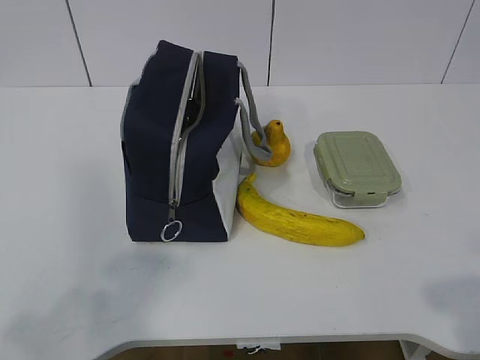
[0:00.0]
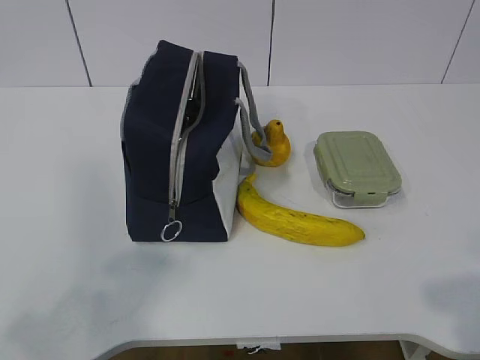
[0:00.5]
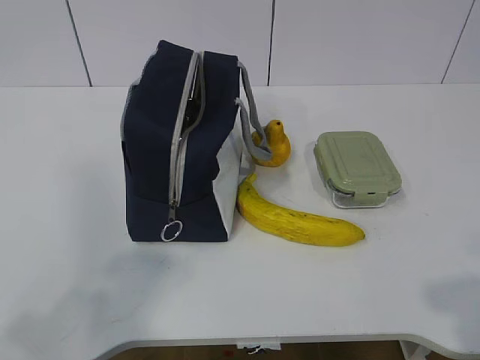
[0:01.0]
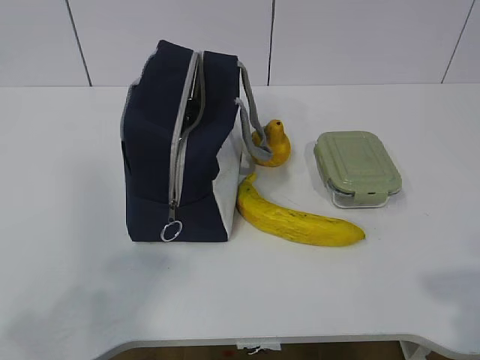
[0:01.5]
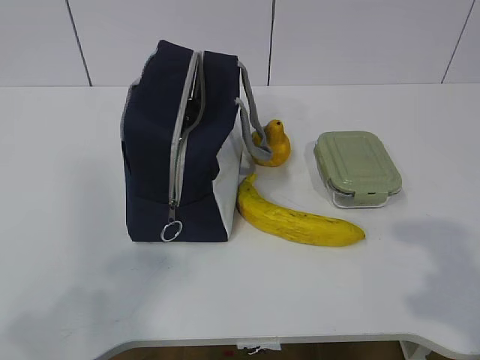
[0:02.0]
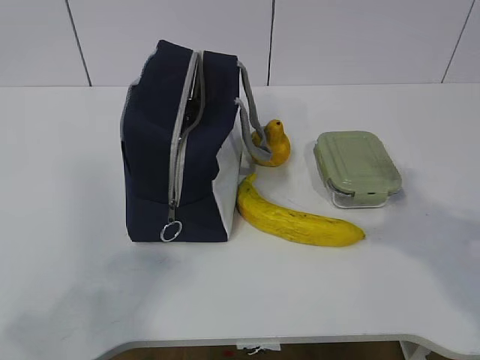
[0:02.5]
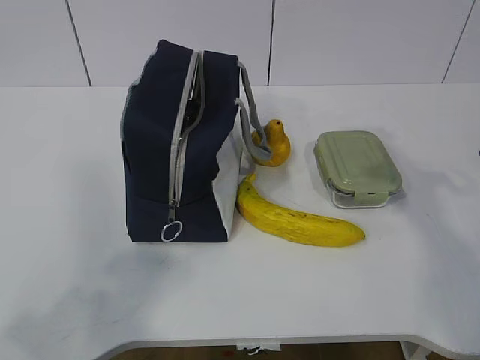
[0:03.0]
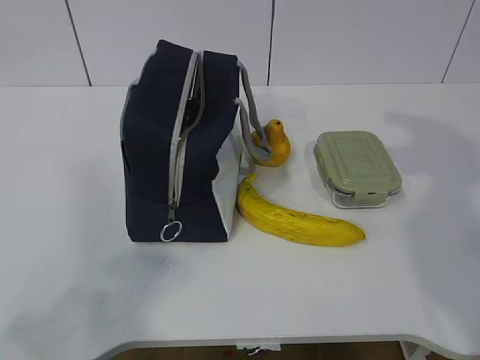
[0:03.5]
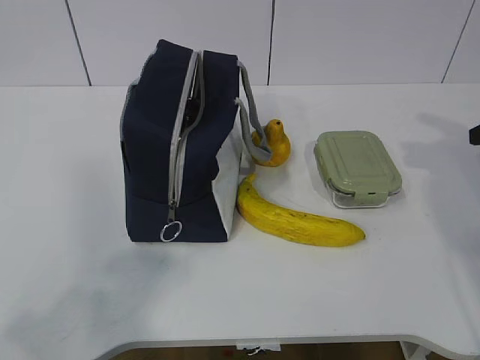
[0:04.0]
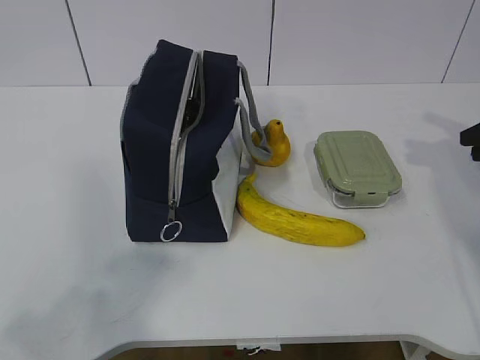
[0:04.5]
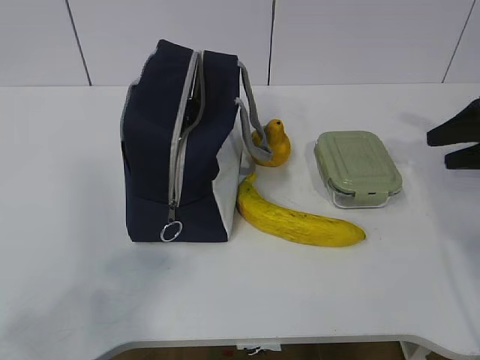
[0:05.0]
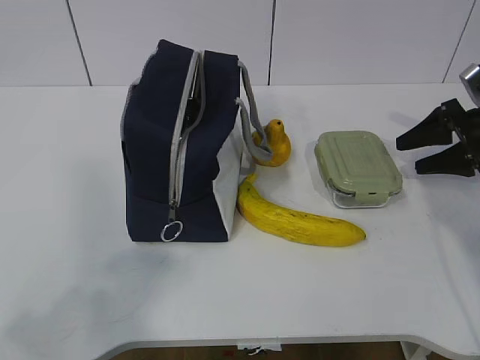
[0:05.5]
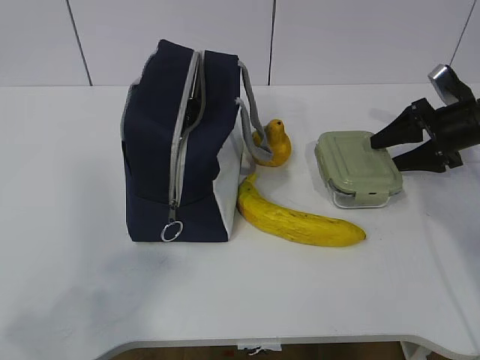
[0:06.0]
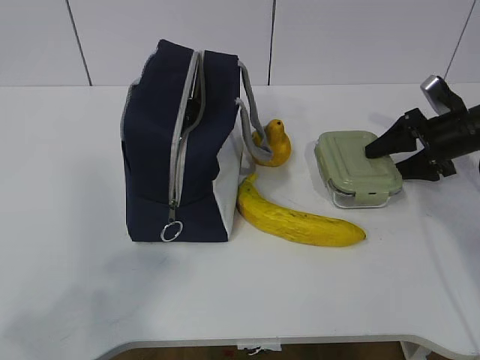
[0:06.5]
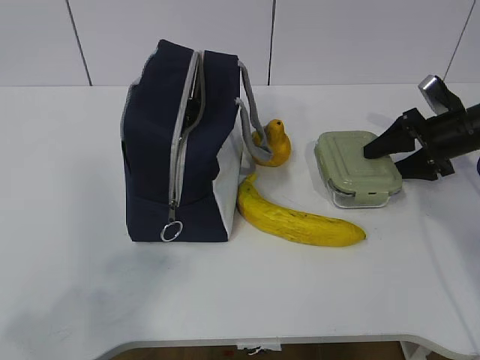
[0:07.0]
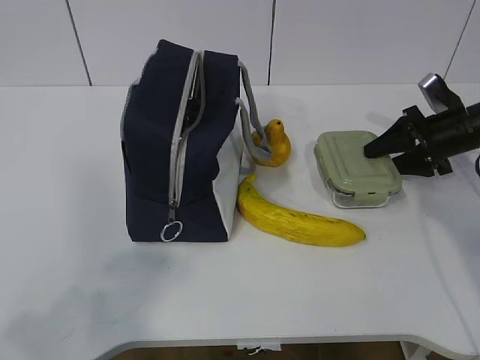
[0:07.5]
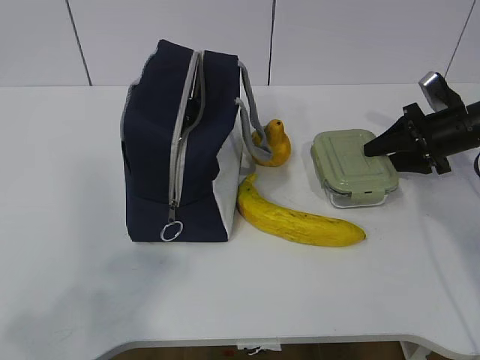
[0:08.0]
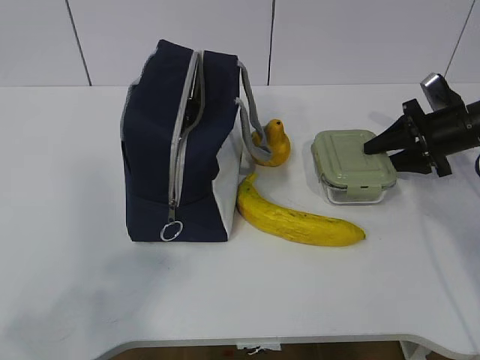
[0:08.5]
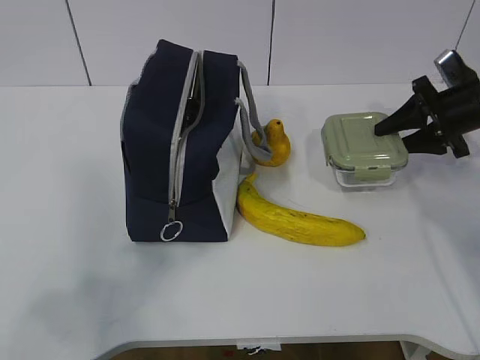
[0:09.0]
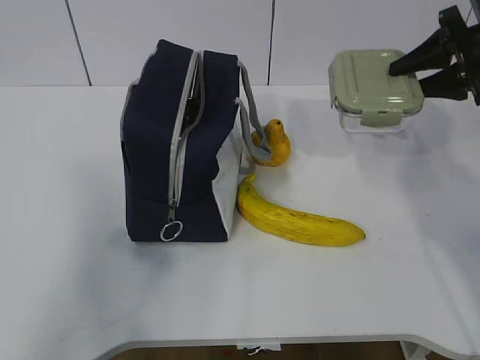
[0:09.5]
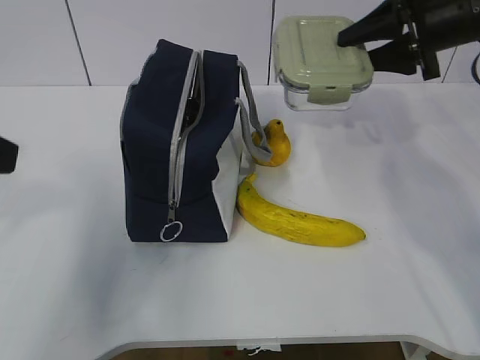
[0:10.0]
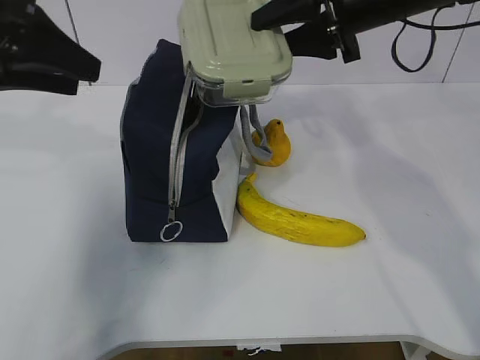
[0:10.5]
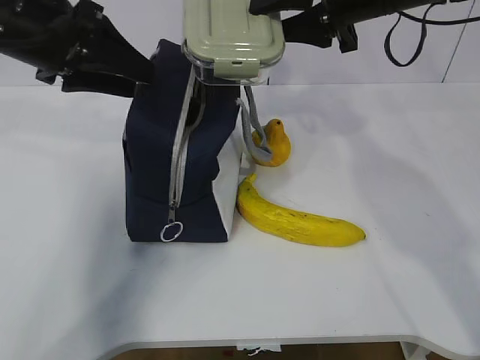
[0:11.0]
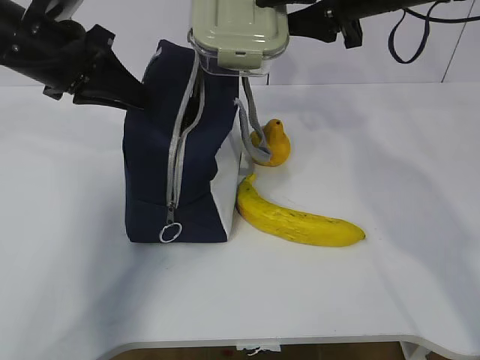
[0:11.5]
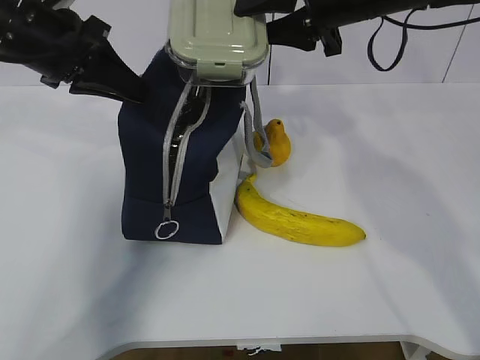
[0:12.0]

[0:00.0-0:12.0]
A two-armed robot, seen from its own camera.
Step, 0:00.0 to 0:08.0: Grasp the box with the right gripper.
0:02.0 to 0:04.0: The right gripper is displaced forward and to the right by roughly 30 cm.
0:04.0 to 0:06.0: The right gripper heads forward, downward and to the left, covering about 15 cm, and opens up.
0:06.0 to 0:08.0: The right gripper closes up.
0:08.0 to 0:10.0: The right gripper heads upward and to the left, covering approximately 20 cm. The left gripper shifts approximately 20 cm forward.
0:10.0 to 0:12.0: The right gripper goes approximately 10 cm to the left; the left gripper goes about 20 cm forward, and closes.

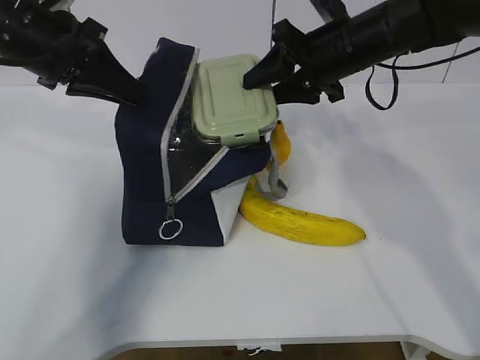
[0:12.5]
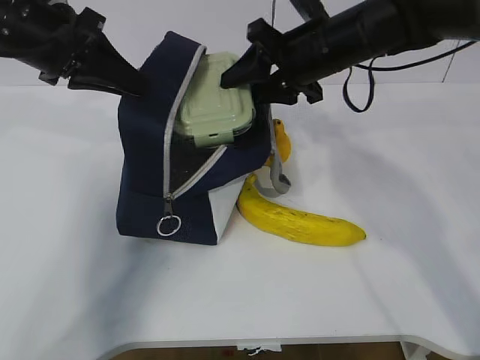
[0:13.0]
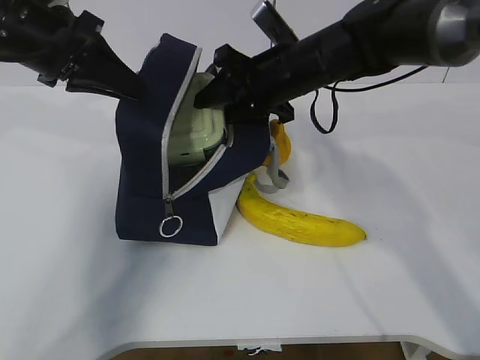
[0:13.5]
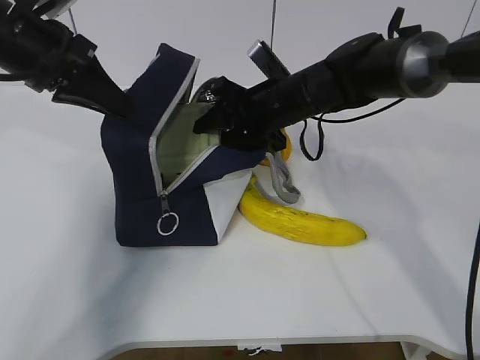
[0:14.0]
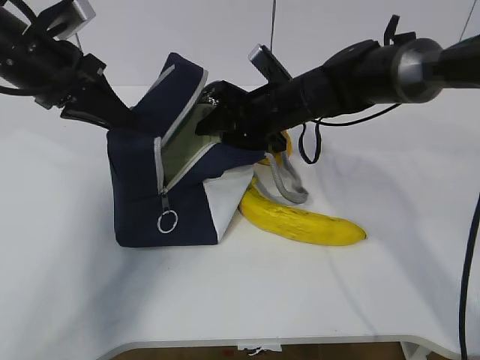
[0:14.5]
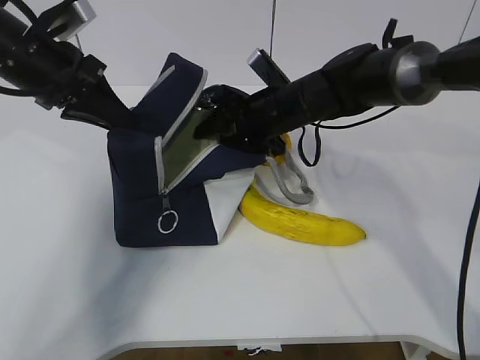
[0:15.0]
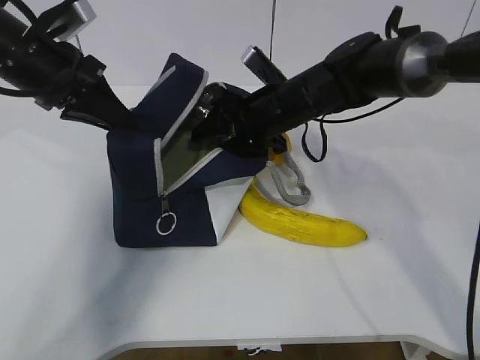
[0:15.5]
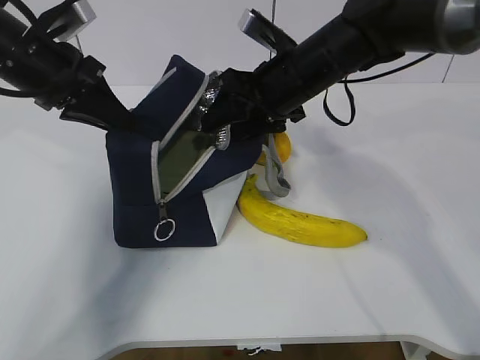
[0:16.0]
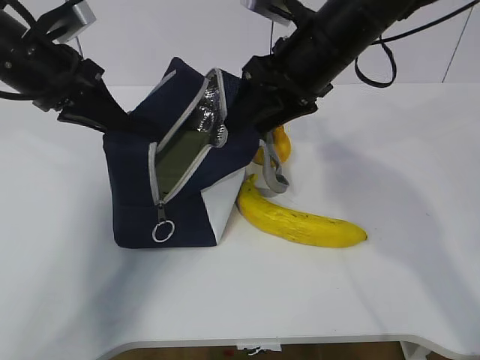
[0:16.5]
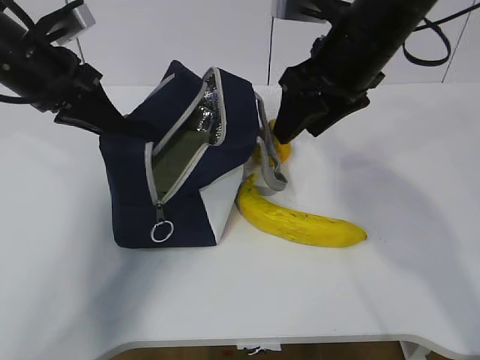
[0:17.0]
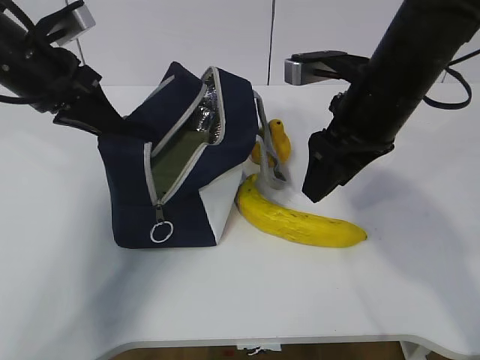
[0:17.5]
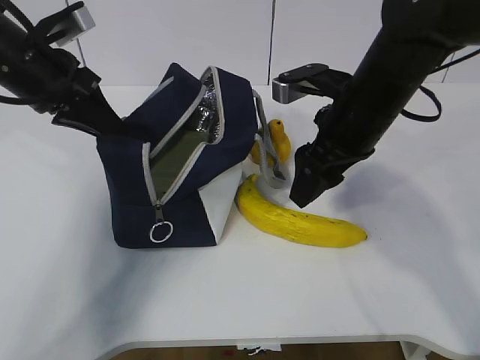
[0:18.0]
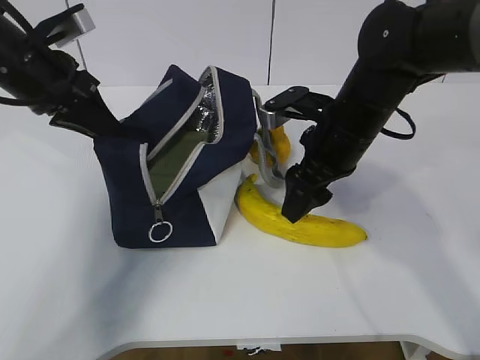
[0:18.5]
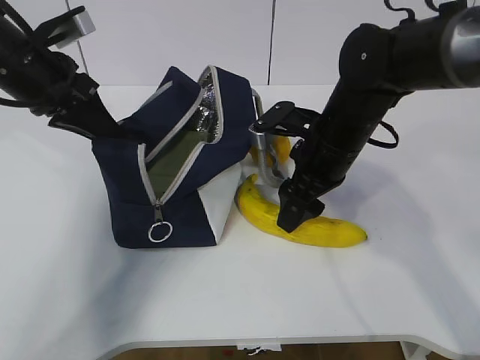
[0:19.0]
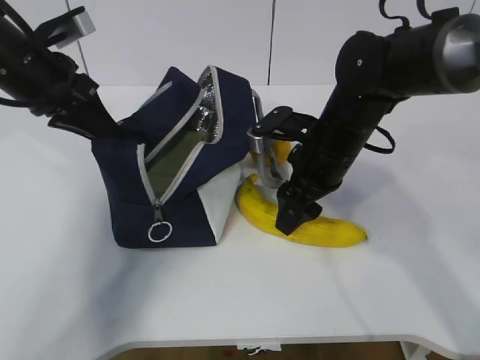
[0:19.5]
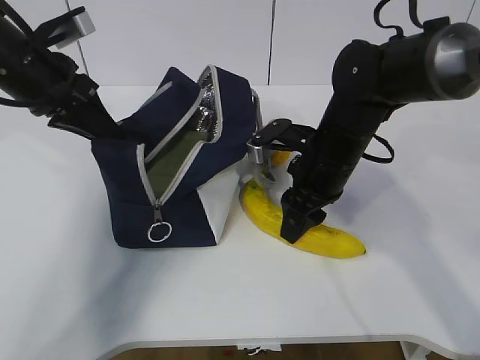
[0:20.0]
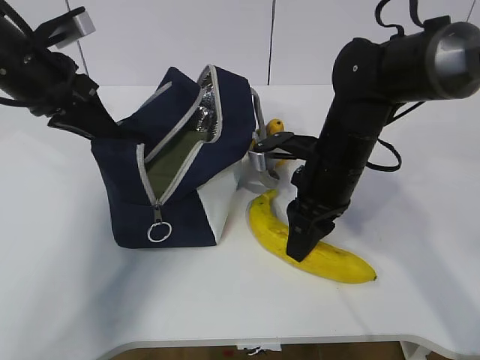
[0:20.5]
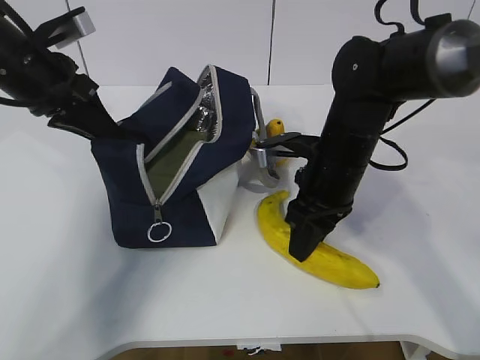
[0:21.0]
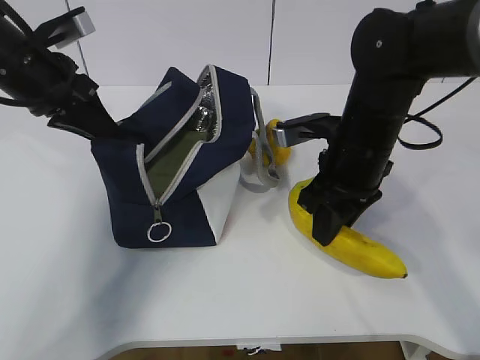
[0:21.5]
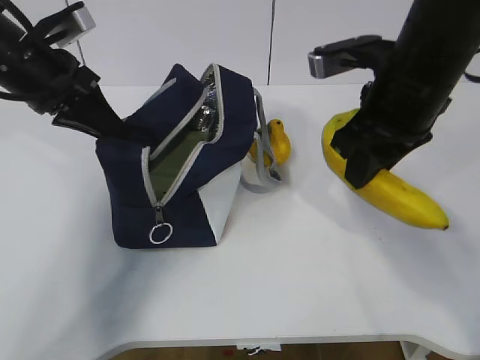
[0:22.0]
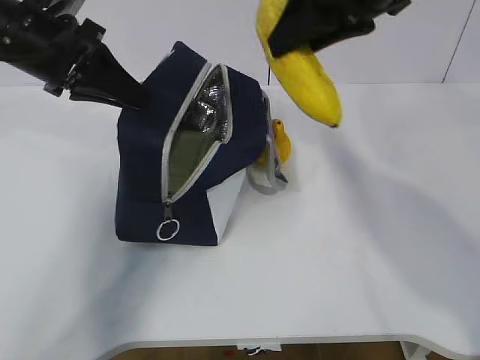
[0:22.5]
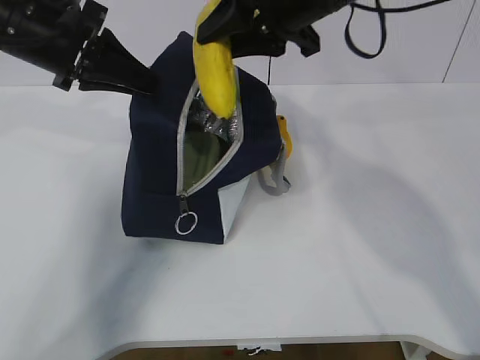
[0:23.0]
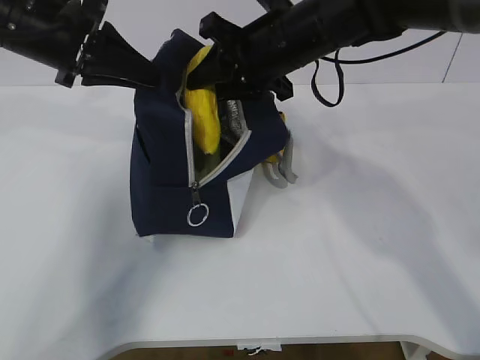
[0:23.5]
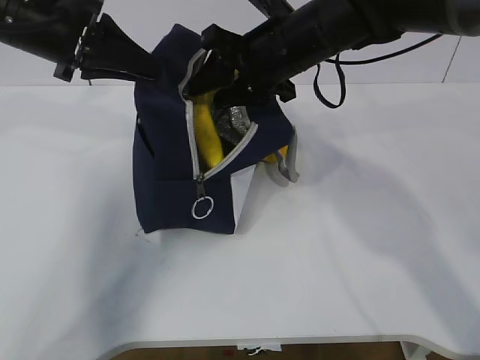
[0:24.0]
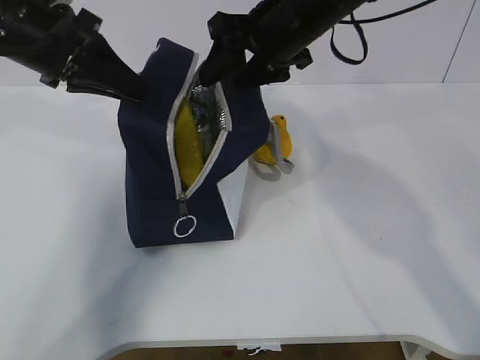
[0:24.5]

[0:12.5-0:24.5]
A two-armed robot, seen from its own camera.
Step, 0:12.5 to 0:16.5: Place the box into the package with the right gripper.
Step, 0:17.0 to 0:20.0: Grasp the banana with the right gripper.
Step, 0:20.5 to 0:24.0: Place the banana into the package with the right gripper.
0:12.5 to 0:14.5: The right gripper moves downward and to the left, approximately 10 cm.
0:14.5 to 0:16.5: The right gripper shifts some 15 cm upward and backward.
0:16.5 to 0:18.5: The right gripper is displaced downward by approximately 10 cm.
0:18.5 to 0:20.5: The right gripper closes its fingers.
0:20.5 to 0:22.5: The right gripper shifts some 20 cm upward.
0:22.5 to 0:24.5: The right gripper goes some 10 cm forward and downward.

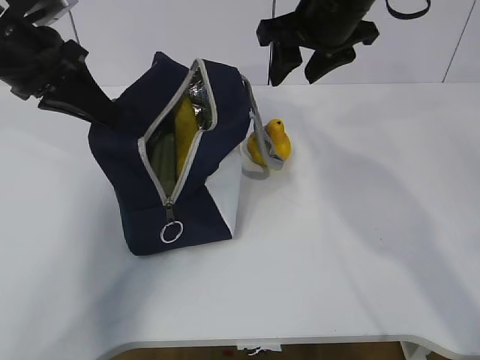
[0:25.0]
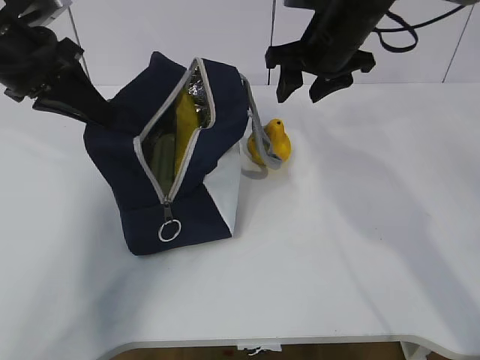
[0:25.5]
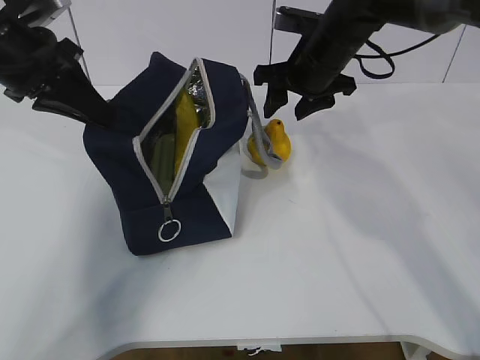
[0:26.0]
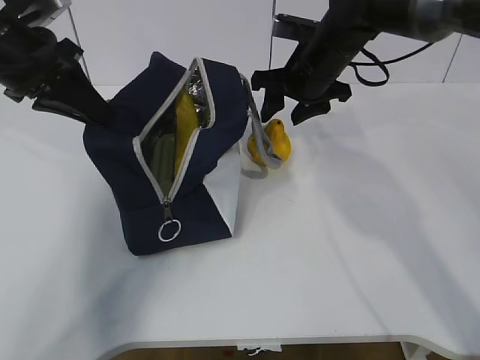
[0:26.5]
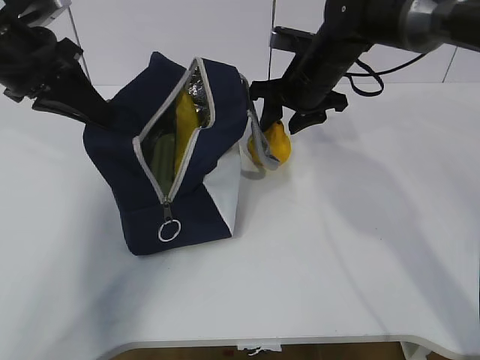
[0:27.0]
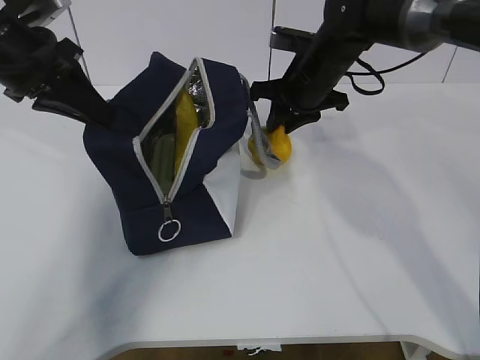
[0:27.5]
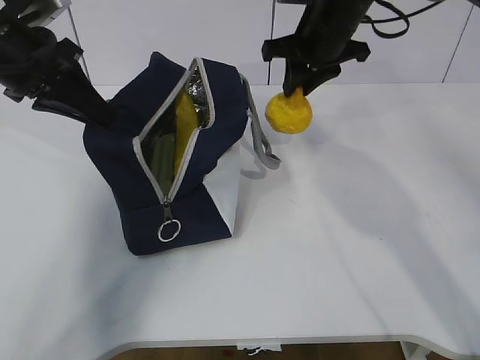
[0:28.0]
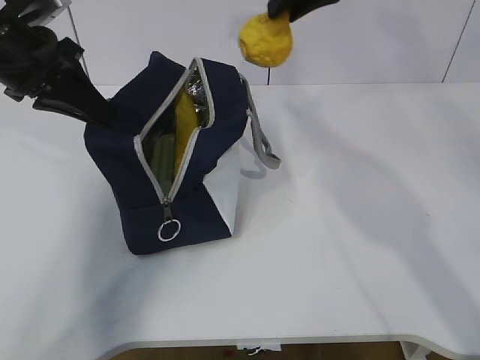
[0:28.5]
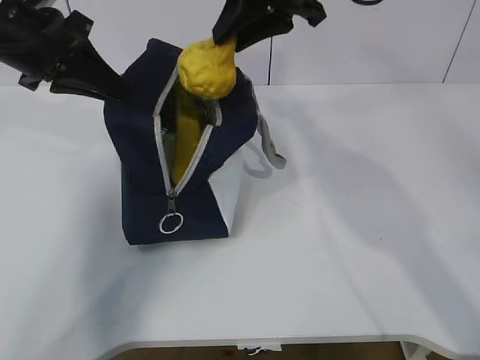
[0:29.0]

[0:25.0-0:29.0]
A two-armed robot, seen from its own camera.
Step, 0:25.0 to 0:27.0: Grasp the pear with the right gripper.
0:25.0 to 0:27.0: The right gripper moves downward and forward, approximately 10 cm.
0:27.0 to 0:29.0: The right gripper shifts some 15 cm upward, and closes its fingers.
